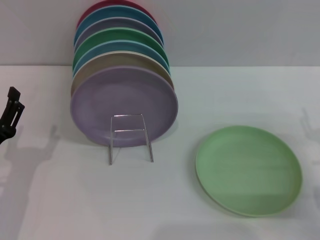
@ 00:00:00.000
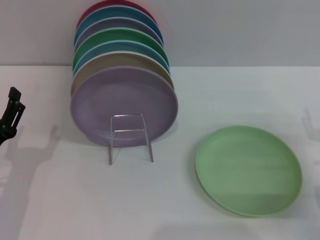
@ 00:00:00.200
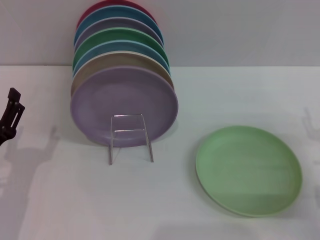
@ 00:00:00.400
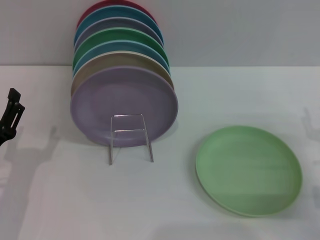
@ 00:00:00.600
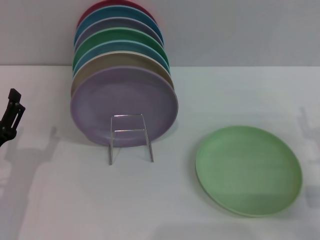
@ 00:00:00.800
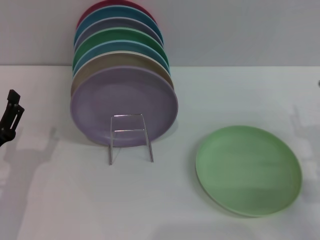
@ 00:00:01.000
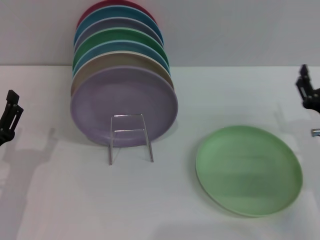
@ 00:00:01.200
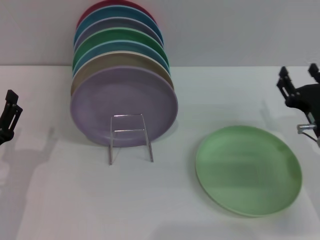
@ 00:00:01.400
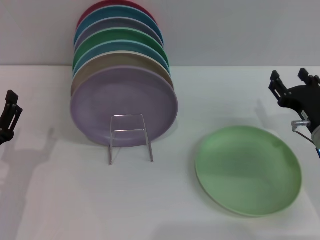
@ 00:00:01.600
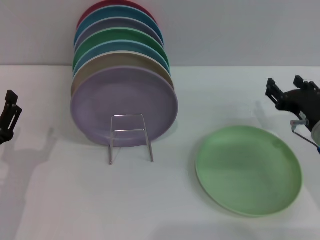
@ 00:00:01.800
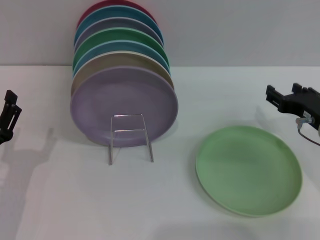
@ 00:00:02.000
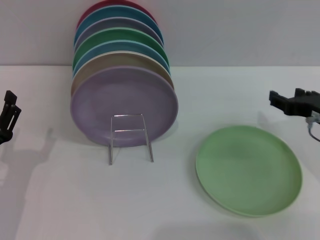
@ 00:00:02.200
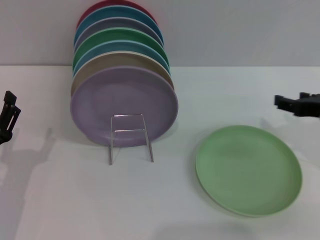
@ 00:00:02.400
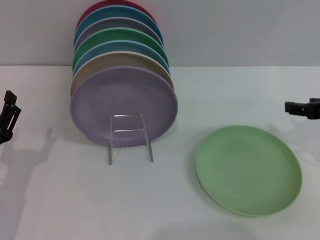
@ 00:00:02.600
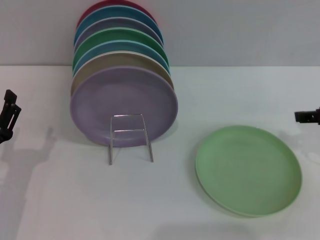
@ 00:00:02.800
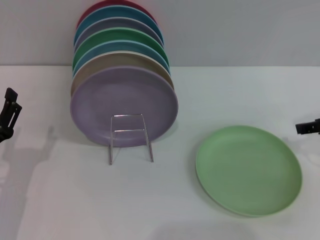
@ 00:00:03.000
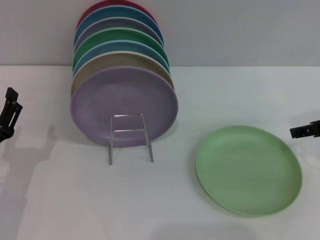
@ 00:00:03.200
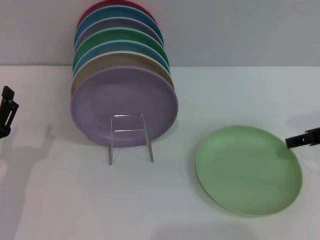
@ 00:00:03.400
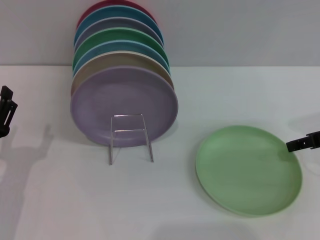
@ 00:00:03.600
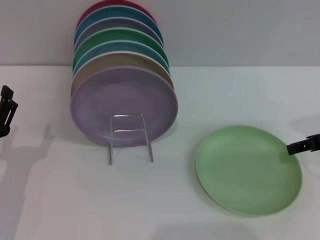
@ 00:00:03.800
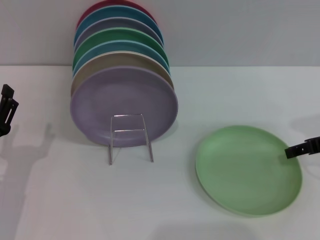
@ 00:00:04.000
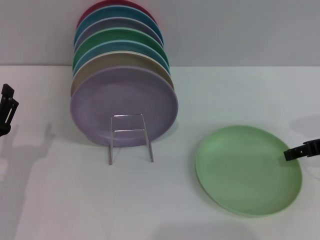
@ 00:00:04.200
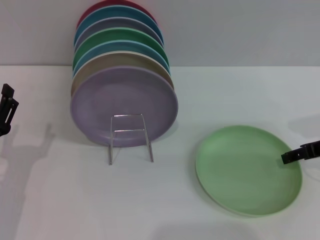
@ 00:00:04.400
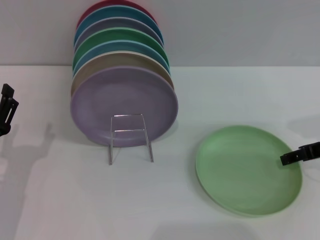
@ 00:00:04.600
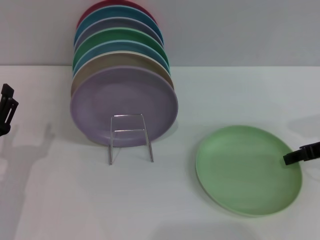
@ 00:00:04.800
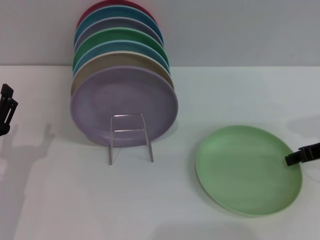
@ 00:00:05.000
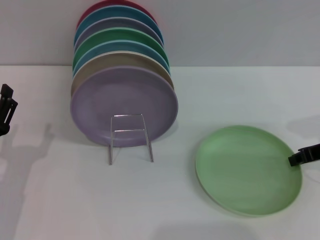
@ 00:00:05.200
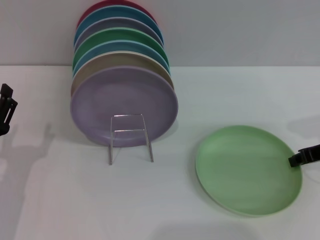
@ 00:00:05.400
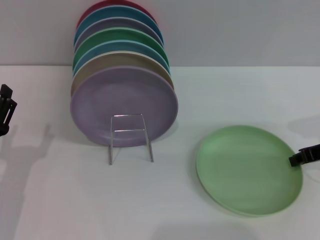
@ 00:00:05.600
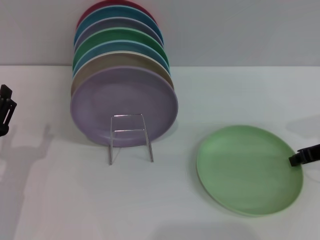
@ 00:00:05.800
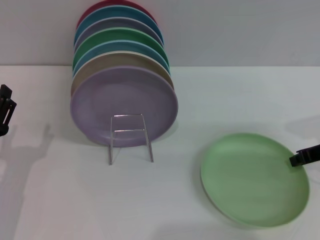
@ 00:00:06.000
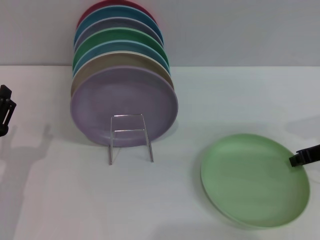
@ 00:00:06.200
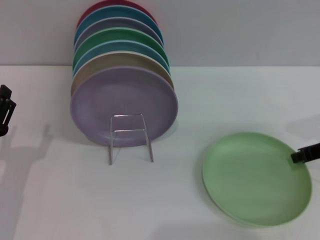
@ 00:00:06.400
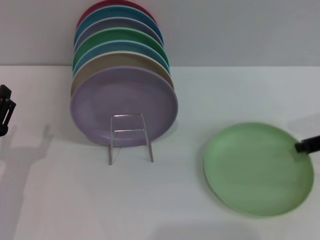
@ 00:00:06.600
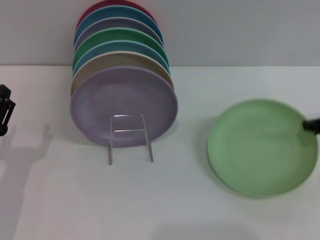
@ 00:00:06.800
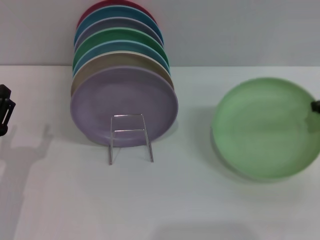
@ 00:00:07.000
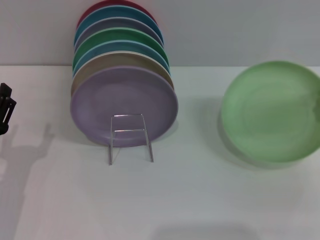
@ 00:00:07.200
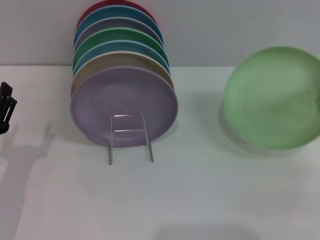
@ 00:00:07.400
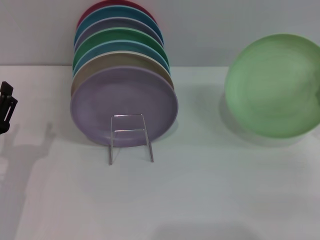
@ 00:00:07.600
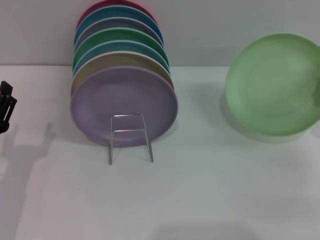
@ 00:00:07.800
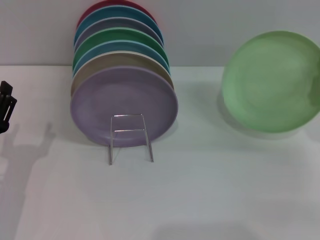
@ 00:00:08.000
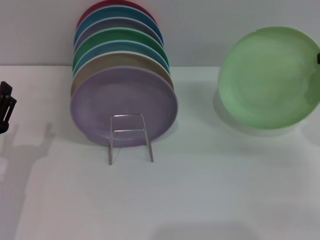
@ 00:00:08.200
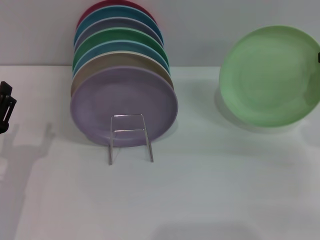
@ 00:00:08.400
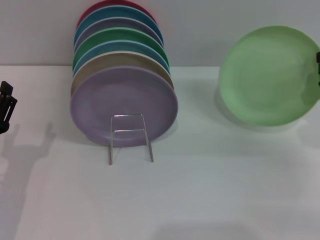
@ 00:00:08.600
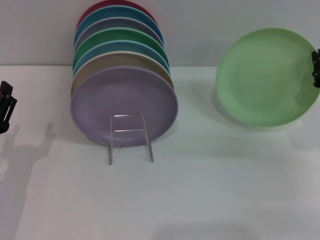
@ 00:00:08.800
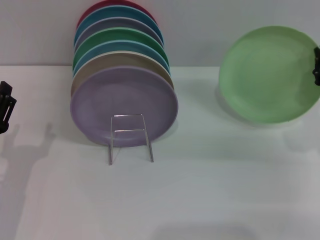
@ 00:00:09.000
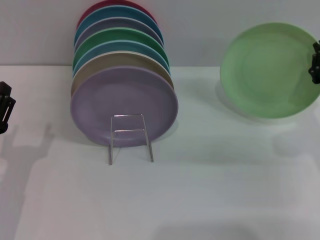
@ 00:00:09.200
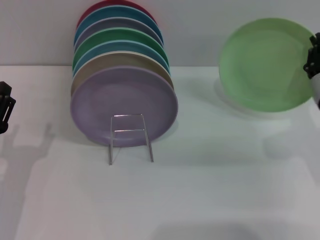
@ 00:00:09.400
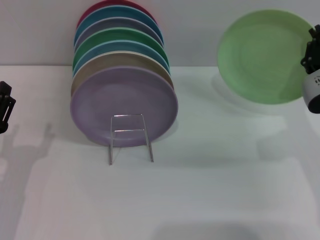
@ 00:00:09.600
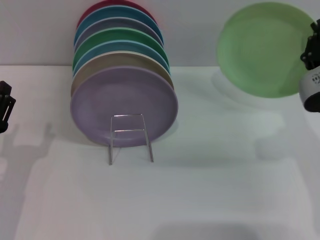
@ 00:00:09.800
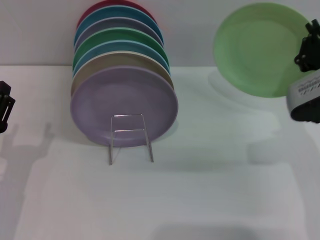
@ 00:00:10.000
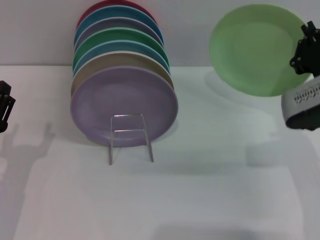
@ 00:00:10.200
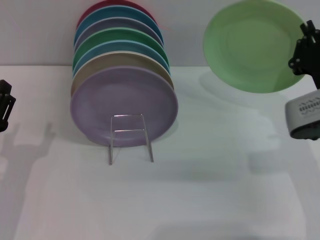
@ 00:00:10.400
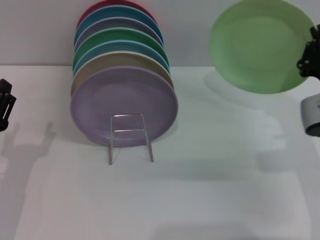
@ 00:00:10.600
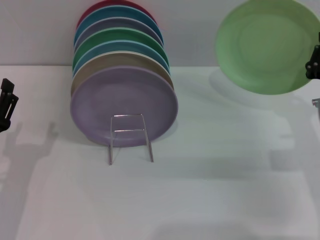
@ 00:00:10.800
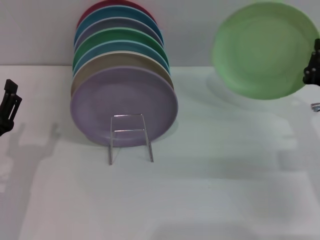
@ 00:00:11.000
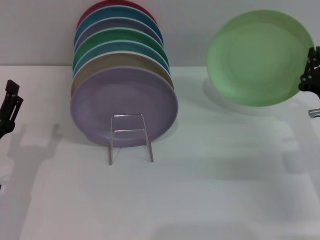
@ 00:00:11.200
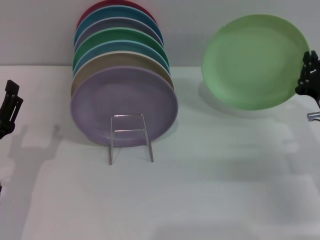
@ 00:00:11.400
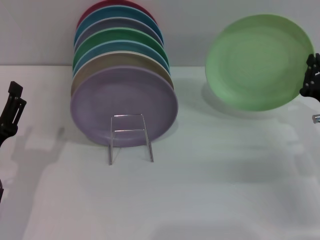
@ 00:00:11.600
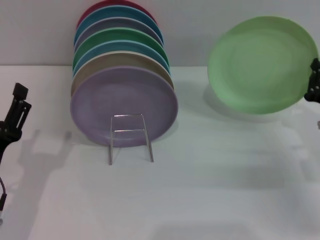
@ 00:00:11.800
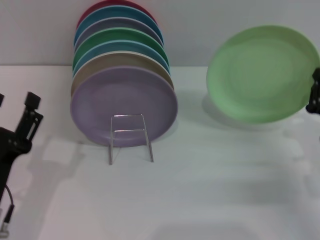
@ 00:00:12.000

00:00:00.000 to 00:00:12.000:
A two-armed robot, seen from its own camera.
Task of the whole recording: Grip the plate with one hand, pass it to the other, then set it on the shelf.
Step, 00:00:00.000 to 00:00:07.600: Pick up the plate with the right gripper.
00:00:00.000 to 00:00:01.600: The right gripper travels to the left and forward by some 5 cm.
00:00:01.600 to 00:00:03.000: The right gripper goes some 15 cm upward and to the right.
00:00:03.000 to 00:00:04.400: The grippers move only a little.
00:00:04.400 to 00:00:06.000: The right gripper closes up.
00:00:06.000 to 00:00:07.600: The right gripper travels upward by some 5 cm.
00:00:07.600 to 00:00:09.000: The right gripper shifts by approximately 5 cm.
00:00:09.000 to 00:00:10.400: The right gripper goes approximately 5 cm to the left.
00:00:10.400 to 00:00:12.000: The right gripper heads downward and to the right, covering roughly 10 cm.

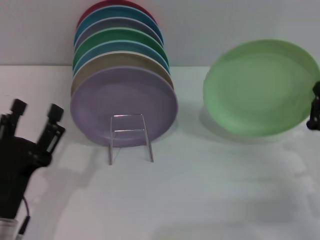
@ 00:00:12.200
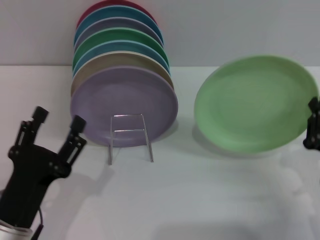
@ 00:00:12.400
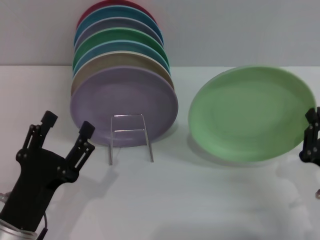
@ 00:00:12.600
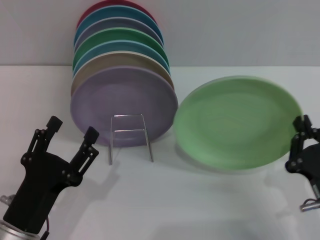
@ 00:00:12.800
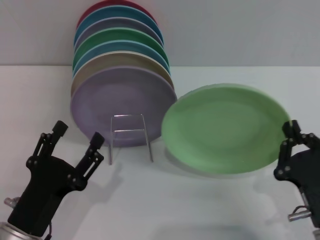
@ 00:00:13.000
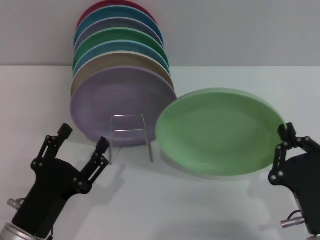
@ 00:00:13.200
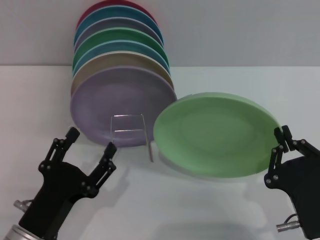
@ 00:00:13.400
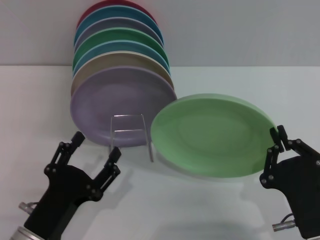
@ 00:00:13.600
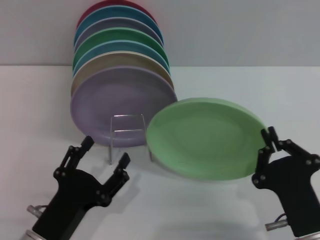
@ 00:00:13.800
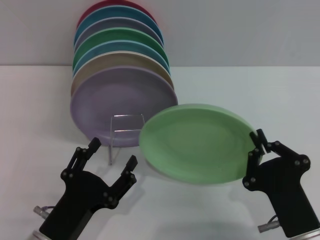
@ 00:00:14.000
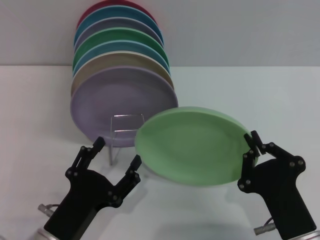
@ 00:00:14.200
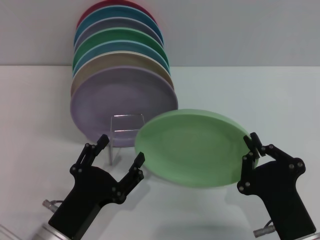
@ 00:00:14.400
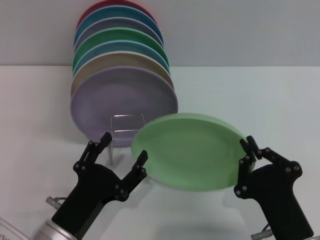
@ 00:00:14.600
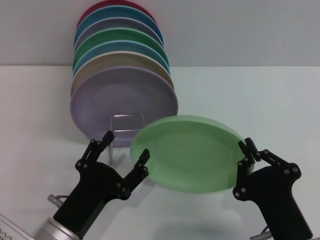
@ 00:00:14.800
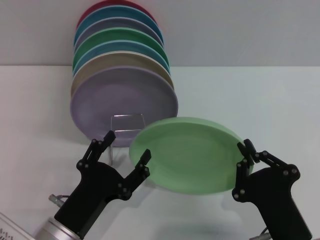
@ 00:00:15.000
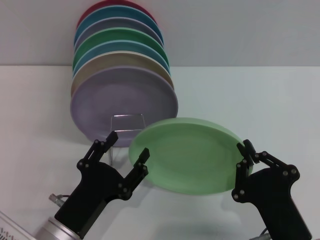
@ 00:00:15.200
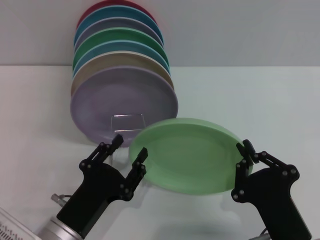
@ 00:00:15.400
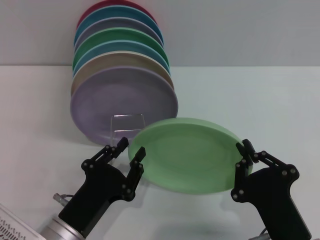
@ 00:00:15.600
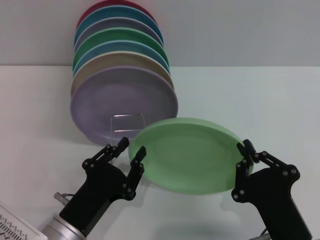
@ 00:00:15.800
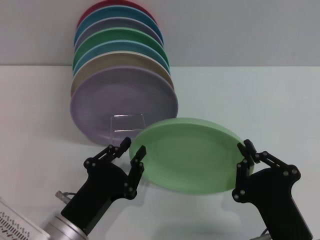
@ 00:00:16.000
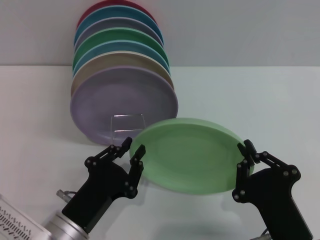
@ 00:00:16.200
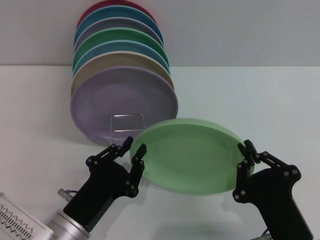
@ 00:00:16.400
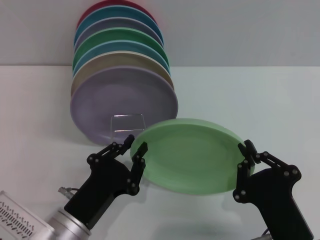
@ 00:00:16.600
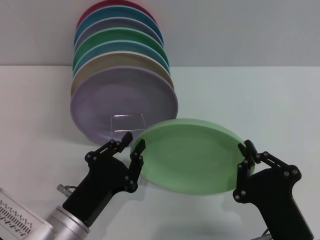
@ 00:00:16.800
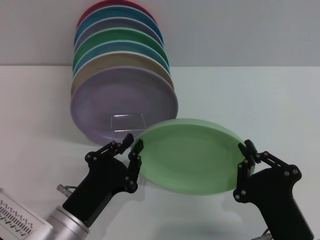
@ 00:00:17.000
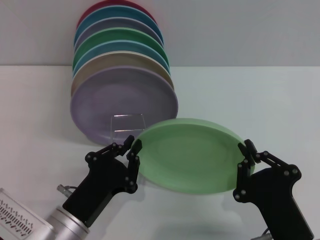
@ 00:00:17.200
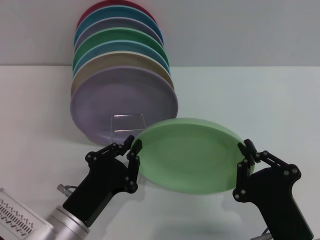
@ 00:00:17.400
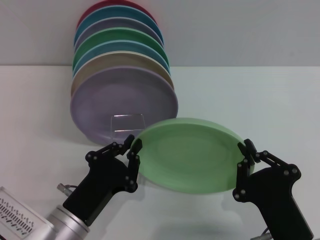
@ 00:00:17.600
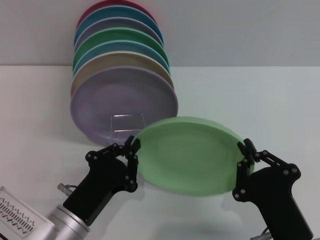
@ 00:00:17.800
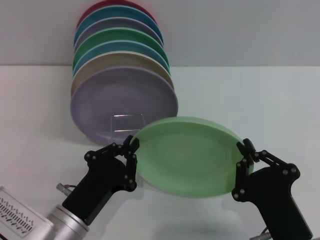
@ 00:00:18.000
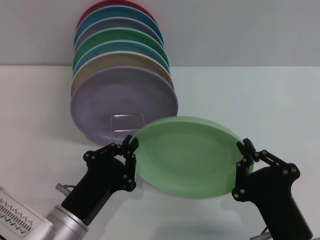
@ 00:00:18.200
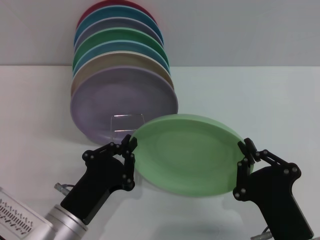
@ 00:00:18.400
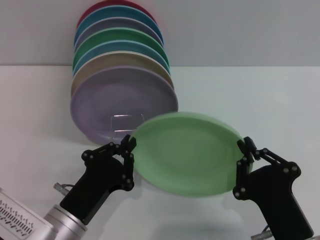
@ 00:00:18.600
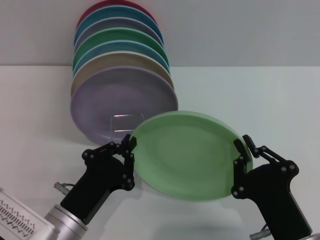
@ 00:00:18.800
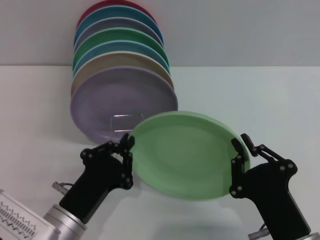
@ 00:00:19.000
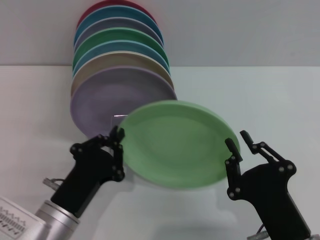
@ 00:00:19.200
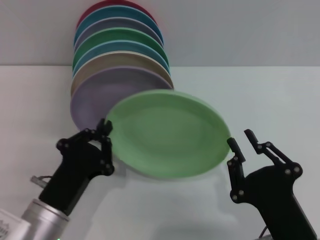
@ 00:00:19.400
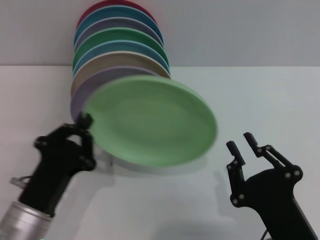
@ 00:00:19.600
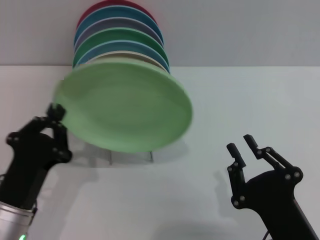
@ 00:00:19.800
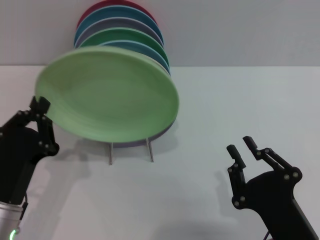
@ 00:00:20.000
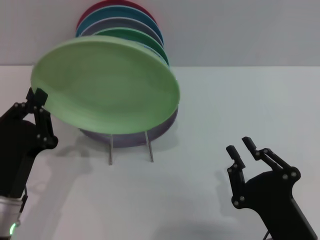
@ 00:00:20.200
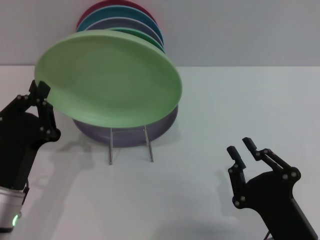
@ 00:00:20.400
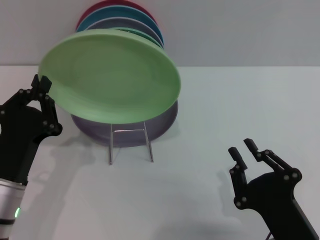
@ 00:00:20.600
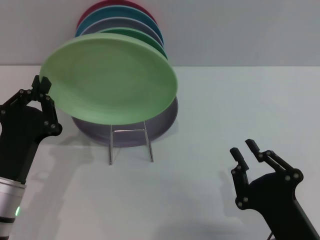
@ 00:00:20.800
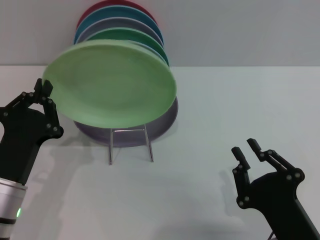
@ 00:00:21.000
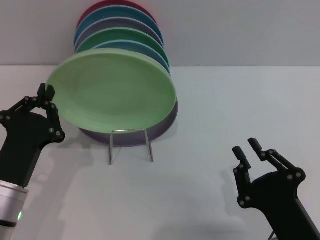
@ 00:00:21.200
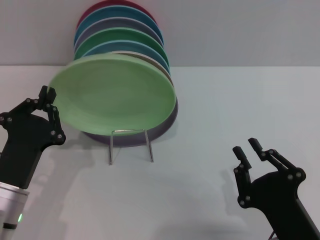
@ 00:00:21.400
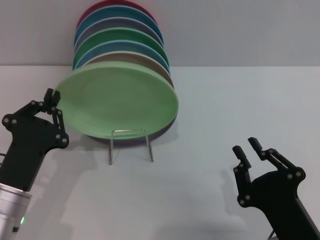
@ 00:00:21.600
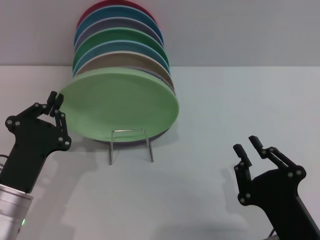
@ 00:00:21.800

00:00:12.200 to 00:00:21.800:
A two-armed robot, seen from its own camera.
Task of the whole recording: Grip the plate with one hand, pass it to the other, then set it on the shelf.
Step, 00:00:12.200 to 00:00:19.600: Pass the plate from the right gripper to the left gripper.
00:00:12.200 to 00:00:13.800: The right gripper goes approximately 15 cm to the left and backward. The left gripper changes place by approximately 5 cm.
00:00:15.400 to 00:00:17.000: The left gripper closes up.
00:00:17.000 to 00:00:18.600: Neither gripper changes place.
00:00:18.600 to 00:00:20.200: The left gripper moves to the left, roughly 5 cm.
